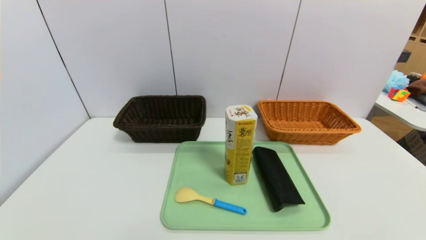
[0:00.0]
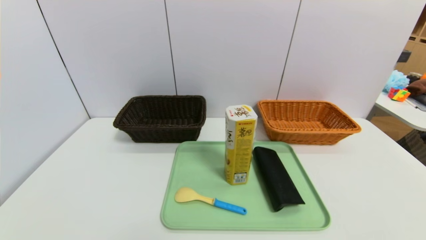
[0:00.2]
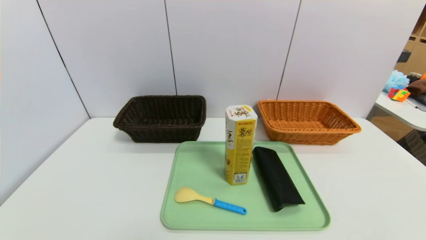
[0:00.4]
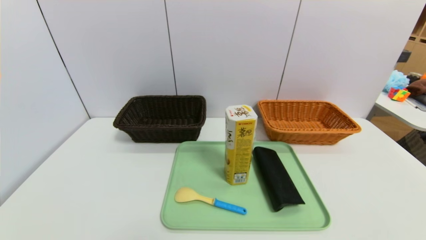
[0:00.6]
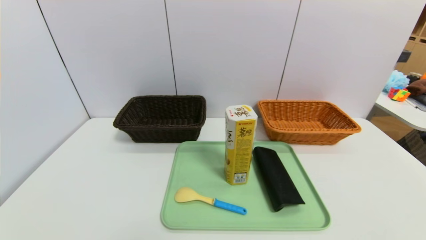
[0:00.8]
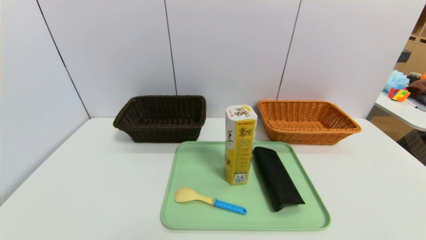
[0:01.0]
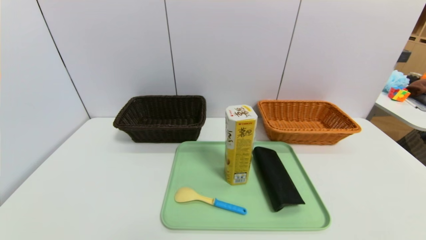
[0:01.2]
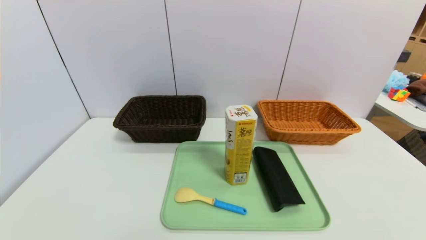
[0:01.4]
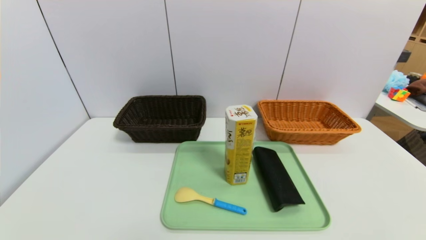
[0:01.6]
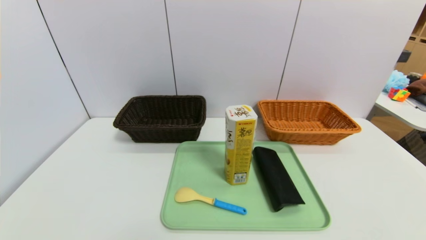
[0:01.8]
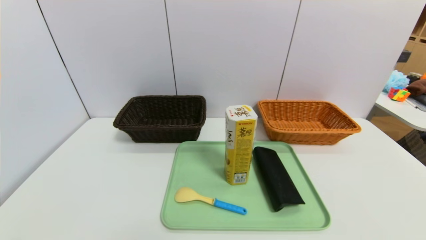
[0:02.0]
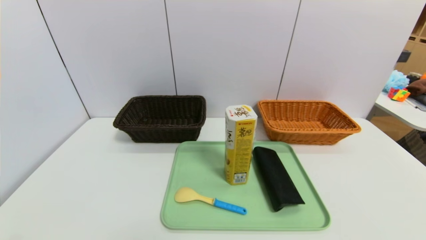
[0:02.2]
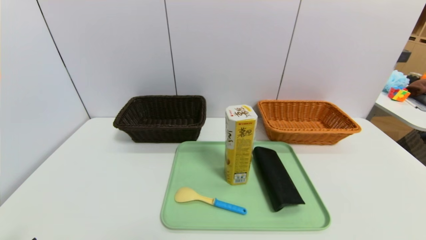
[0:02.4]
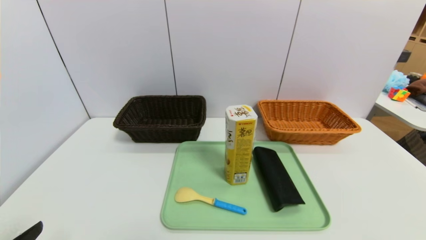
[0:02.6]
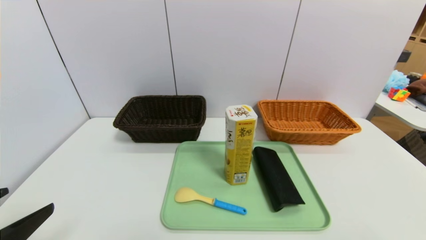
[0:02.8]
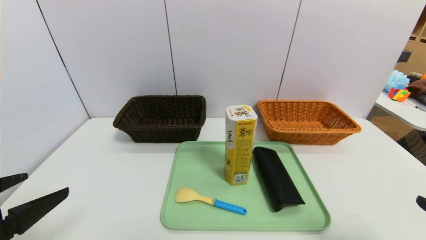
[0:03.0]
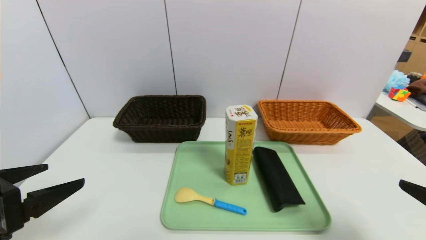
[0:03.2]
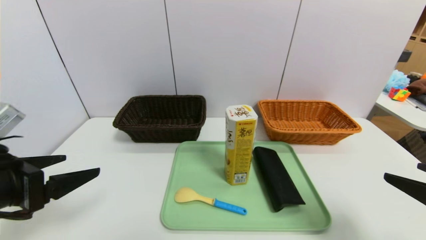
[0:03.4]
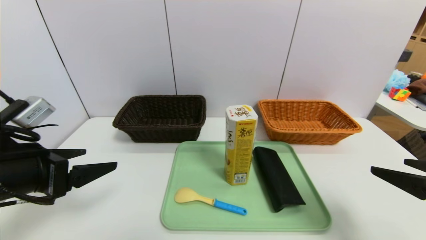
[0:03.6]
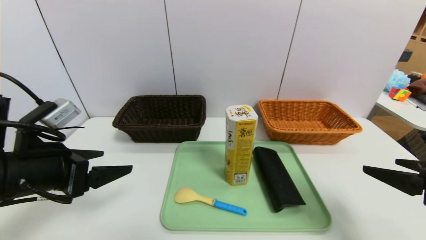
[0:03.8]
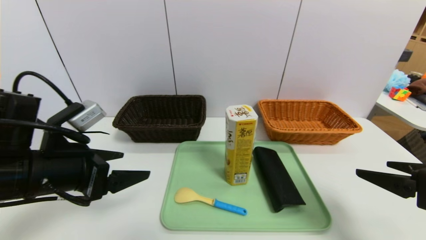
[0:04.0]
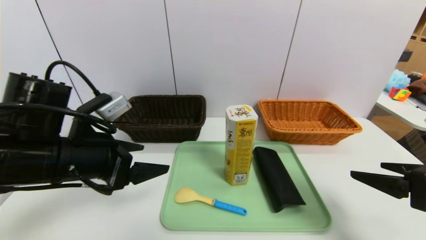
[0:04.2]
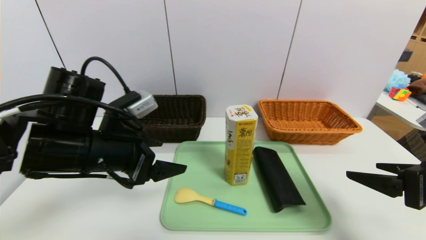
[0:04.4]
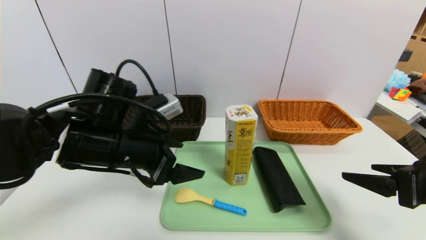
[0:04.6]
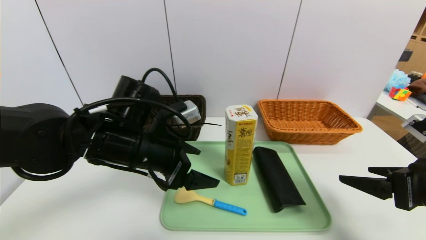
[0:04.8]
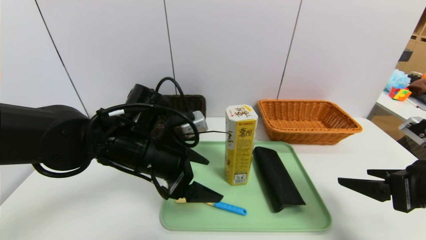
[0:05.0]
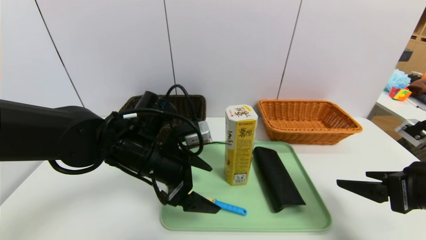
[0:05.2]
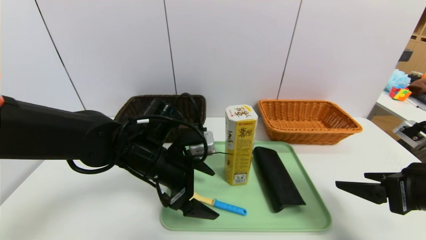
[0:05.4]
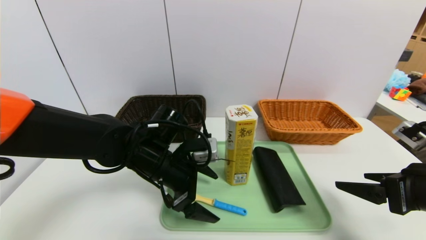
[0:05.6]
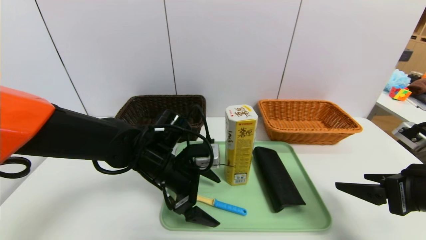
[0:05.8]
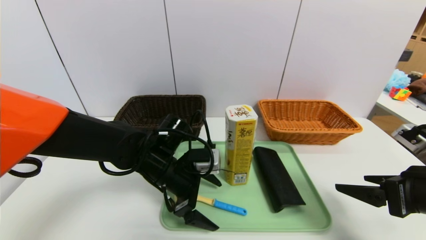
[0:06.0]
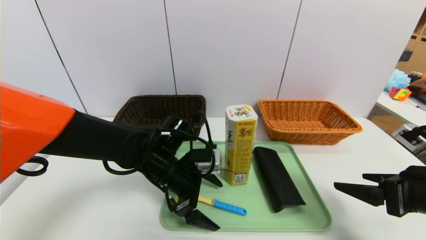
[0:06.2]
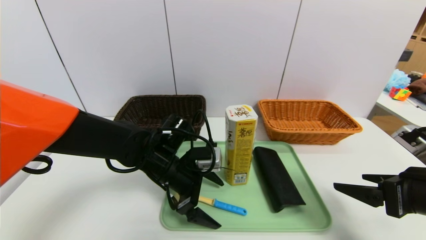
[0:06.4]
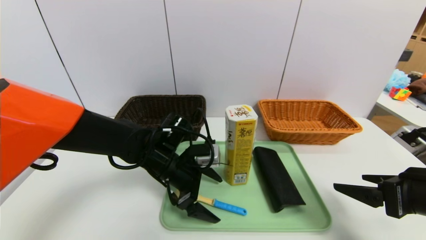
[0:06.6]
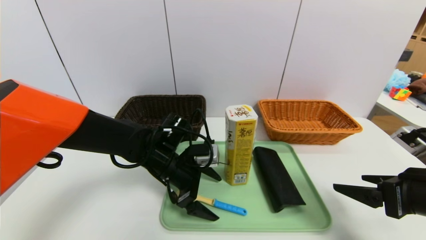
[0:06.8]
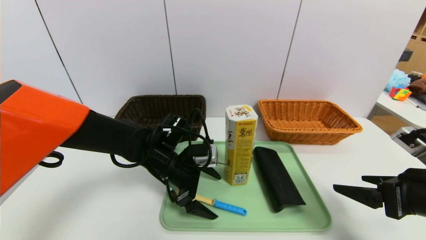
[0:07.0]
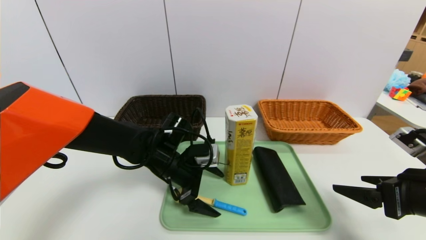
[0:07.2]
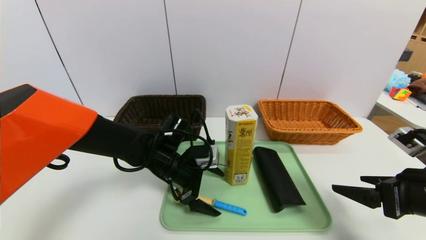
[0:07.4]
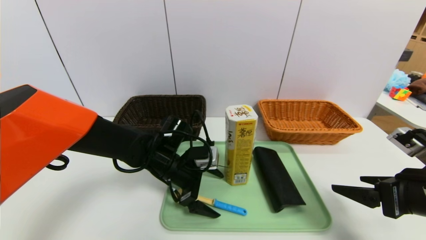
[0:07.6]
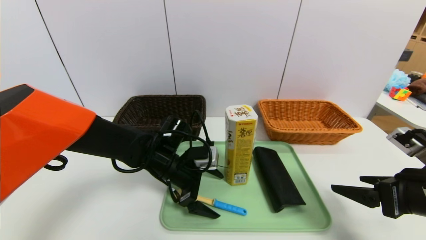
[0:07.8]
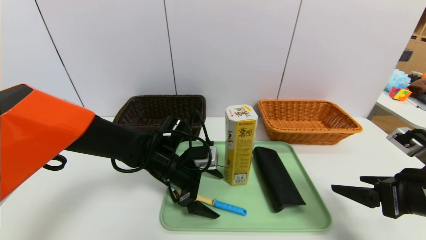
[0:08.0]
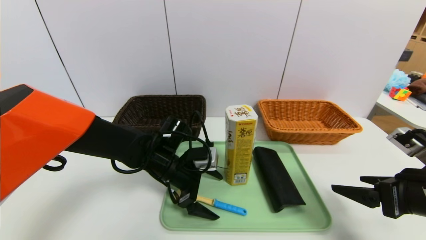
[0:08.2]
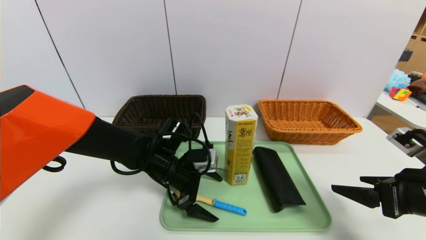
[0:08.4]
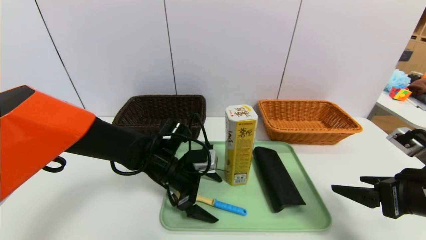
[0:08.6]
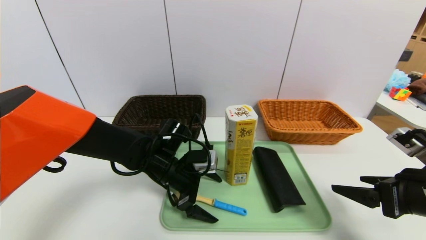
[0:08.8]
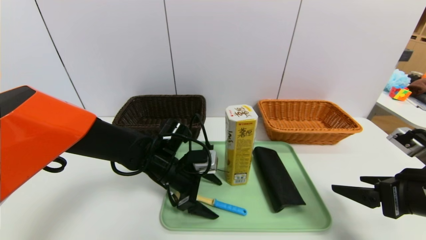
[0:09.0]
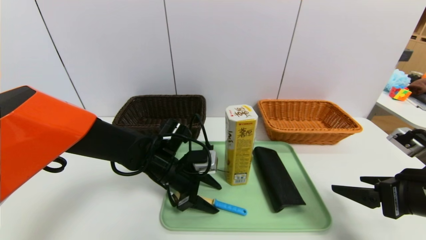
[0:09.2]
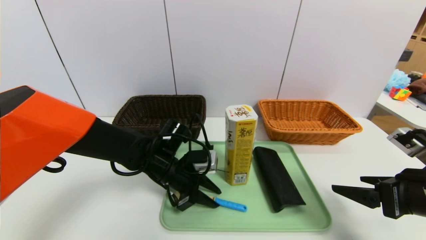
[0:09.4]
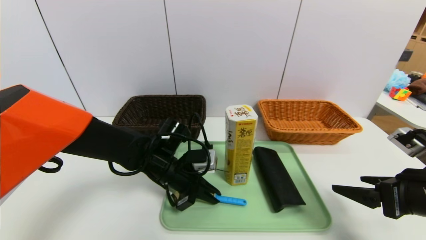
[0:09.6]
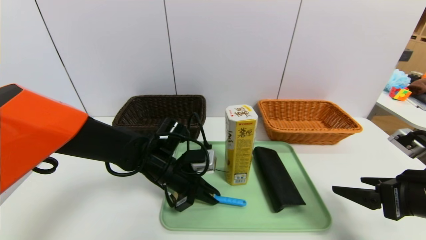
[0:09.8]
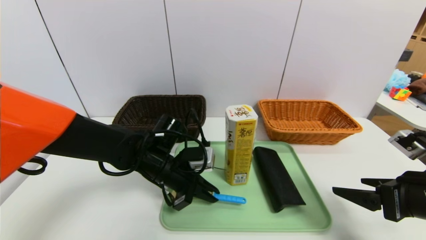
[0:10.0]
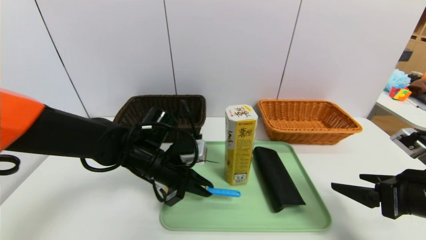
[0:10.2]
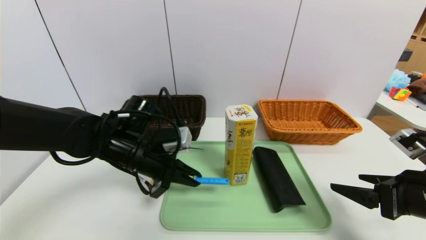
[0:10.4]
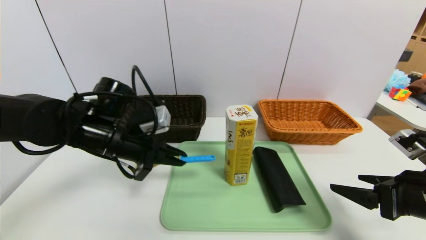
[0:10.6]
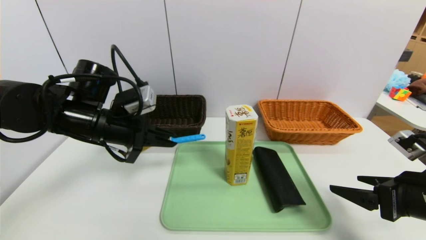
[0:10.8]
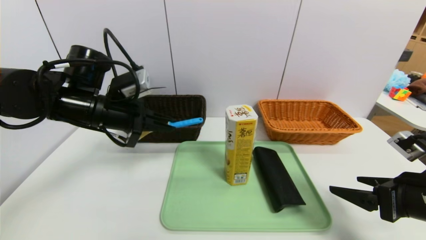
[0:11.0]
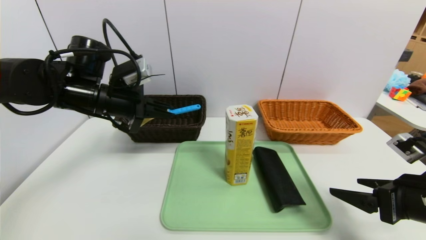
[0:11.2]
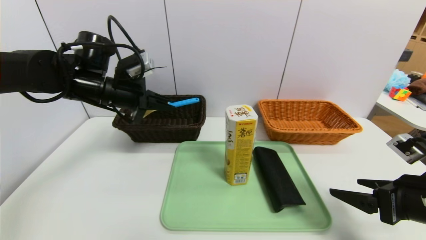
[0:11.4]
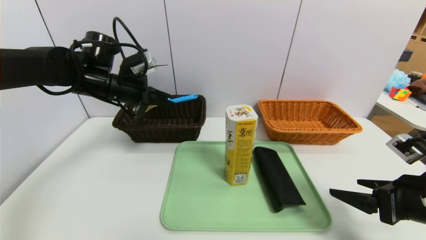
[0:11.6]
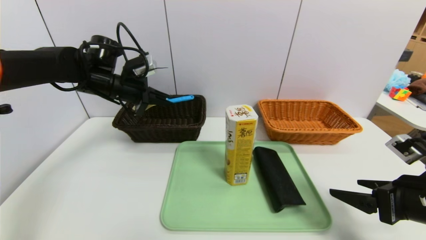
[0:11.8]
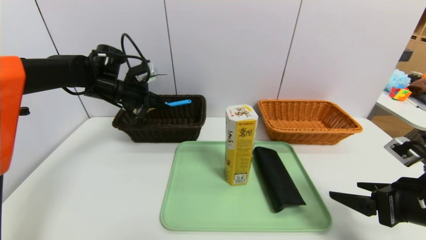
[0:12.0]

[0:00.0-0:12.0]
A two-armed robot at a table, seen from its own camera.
Task of the whole recording: place the food in the right basket with the right gripper, and place the non food items in the left basket with the left gripper.
0:01.6 to 0:03.0: The left gripper heads upward and forward, covering some 15 cm.
0:03.0 to 0:04.4: The right gripper is displaced forward by roughly 10 cm; the left gripper heads forward and to the right, covering roughly 20 cm.
0:04.4 to 0:06.0: The left gripper travels downward, to the right and forward by some 15 cm.
0:06.0 to 0:07.6: The grippers make only small movements.
0:07.6 to 0:09.0: Both grippers stay put.
0:09.0 to 0:10.4: The left gripper shifts some 5 cm upward, and closes its fingers.
0:10.4 to 0:12.0: The left gripper heads forward, to the left and upward, covering some 20 cm.

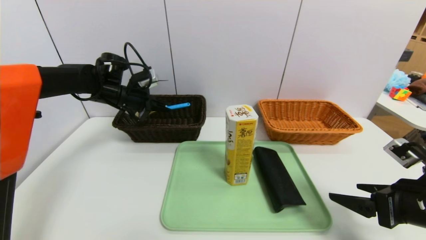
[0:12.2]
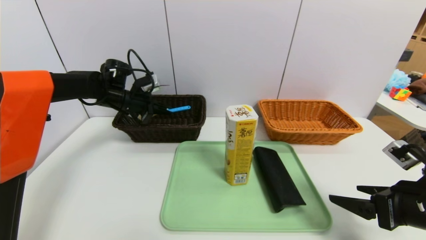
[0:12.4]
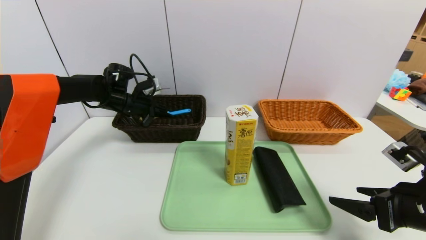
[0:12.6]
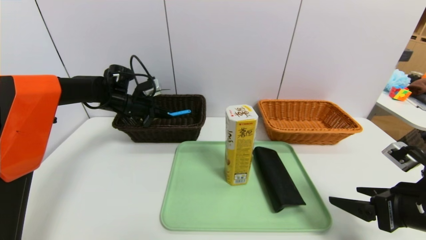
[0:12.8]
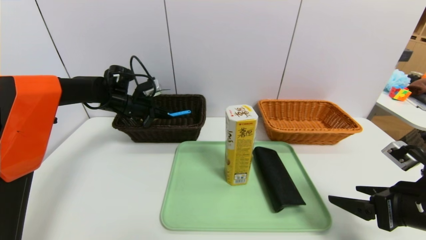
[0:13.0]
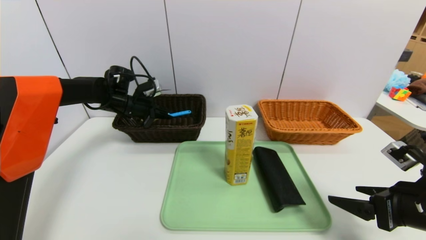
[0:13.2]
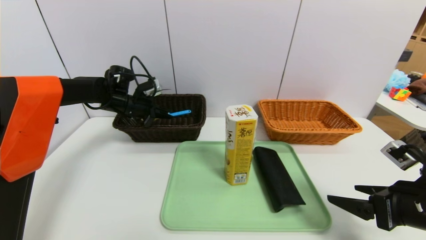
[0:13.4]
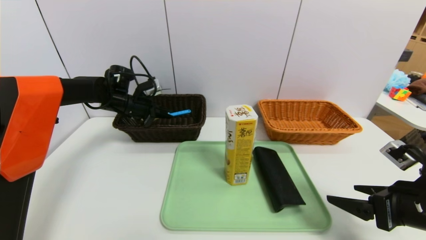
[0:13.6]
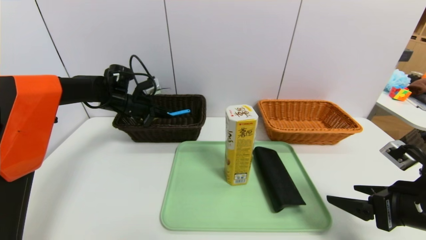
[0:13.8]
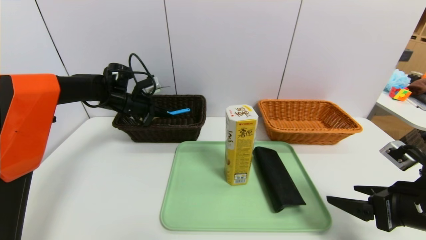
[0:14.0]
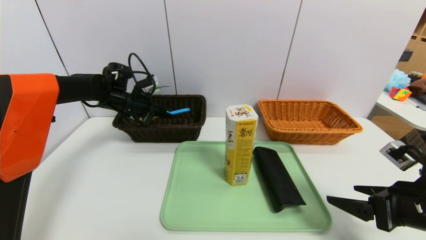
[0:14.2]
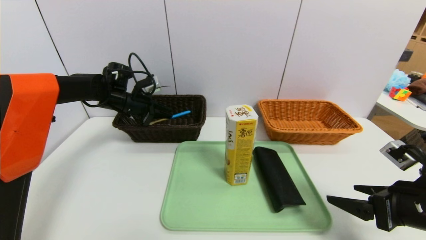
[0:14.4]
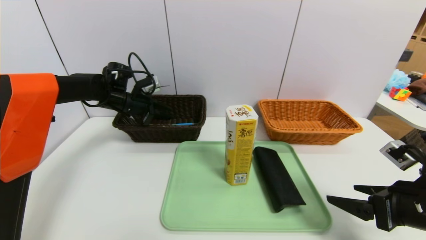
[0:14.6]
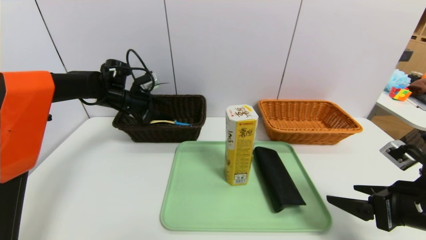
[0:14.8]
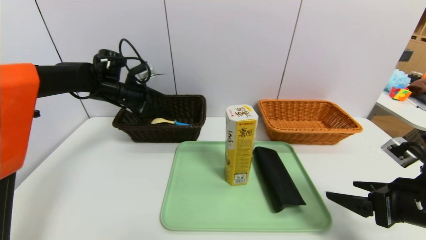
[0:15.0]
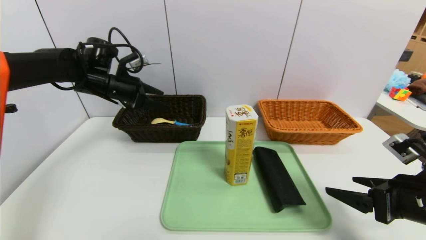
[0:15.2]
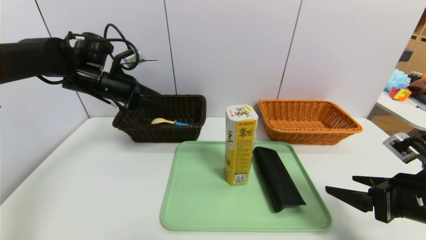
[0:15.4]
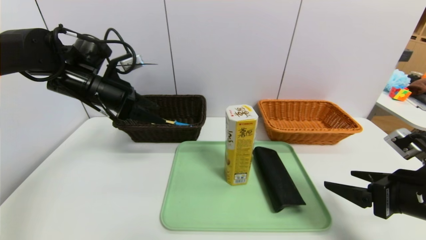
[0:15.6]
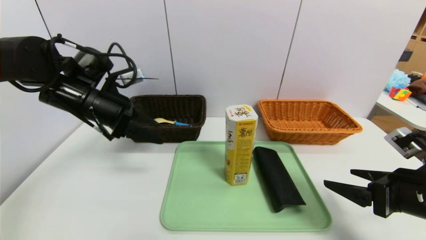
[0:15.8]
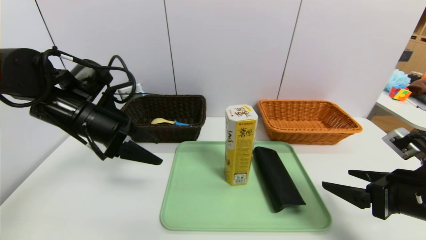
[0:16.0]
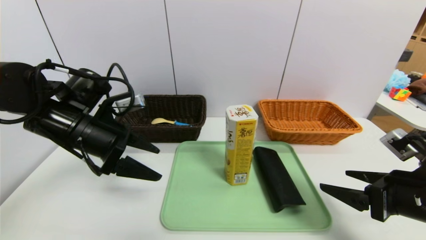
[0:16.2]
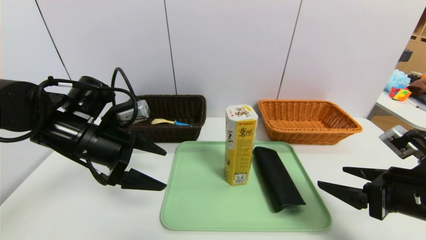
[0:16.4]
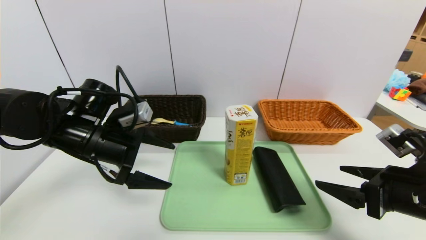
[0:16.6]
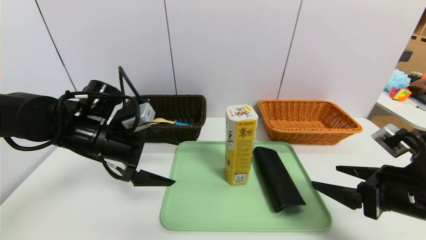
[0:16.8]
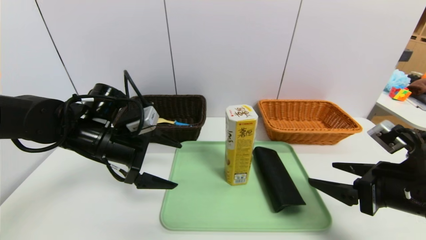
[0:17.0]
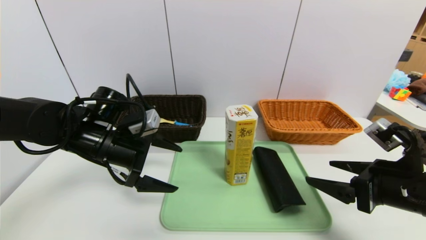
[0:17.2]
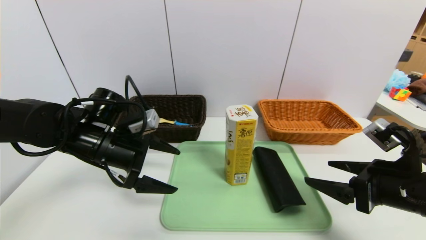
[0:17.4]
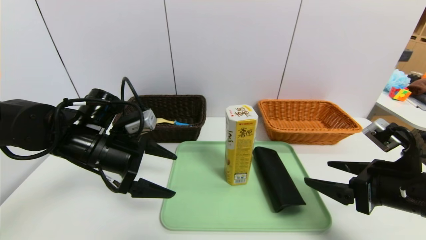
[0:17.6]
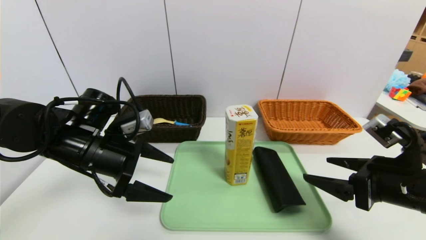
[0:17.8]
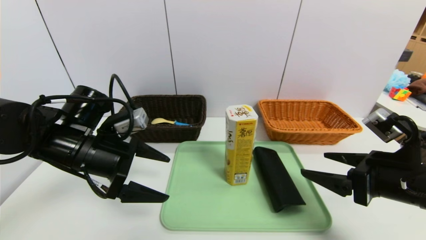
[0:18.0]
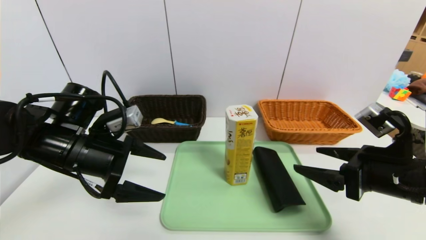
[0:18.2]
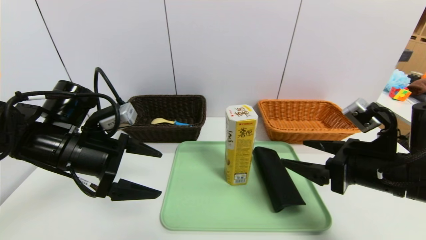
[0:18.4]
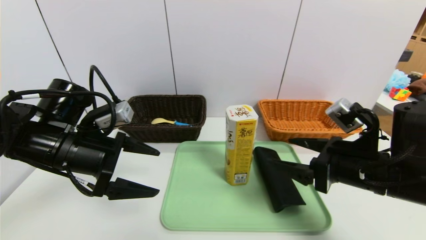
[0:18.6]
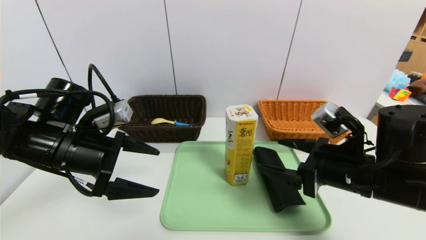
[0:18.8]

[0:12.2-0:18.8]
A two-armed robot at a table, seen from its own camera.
Task of the whole recording: place the food in the right basket with the right gripper, and place the non food items in the left basket with the left gripper.
Step, 0:12.2 to 0:14.8: Grasp the back scratcher and put it in the left basket.
0:12.2 to 0:13.8: There are only small adjustments of the grippers.
0:13.8 to 0:15.4: The left gripper is displaced upward and backward by some 10 cm, and opens up.
0:15.4 to 0:17.2: The left gripper goes about 15 cm backward and downward.
0:17.2 to 0:18.8: The right gripper is displaced to the left by some 5 cm. Meanwhile the left gripper moves some 5 cm.
